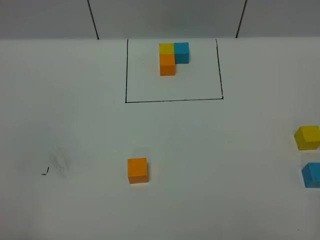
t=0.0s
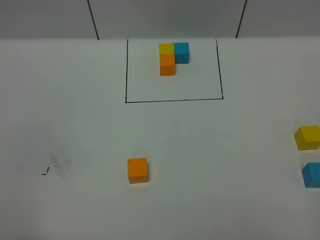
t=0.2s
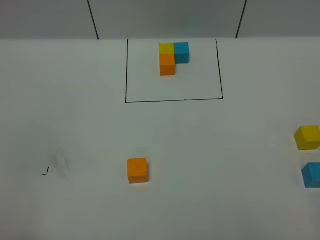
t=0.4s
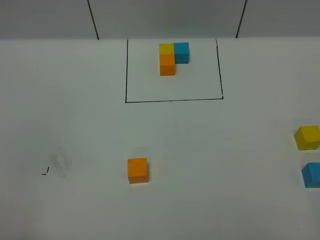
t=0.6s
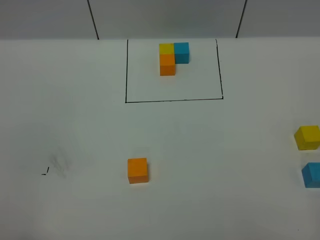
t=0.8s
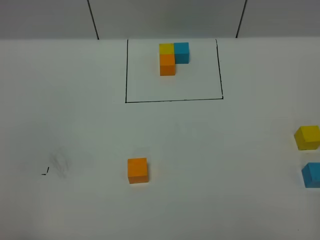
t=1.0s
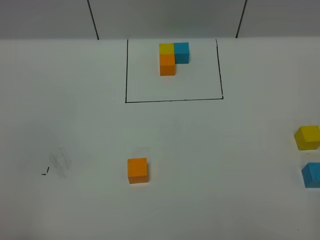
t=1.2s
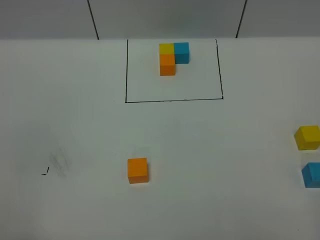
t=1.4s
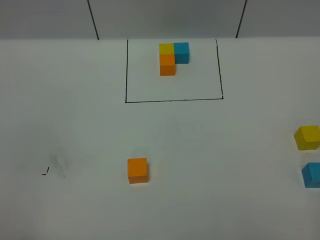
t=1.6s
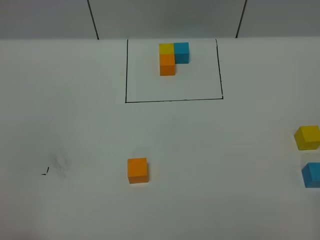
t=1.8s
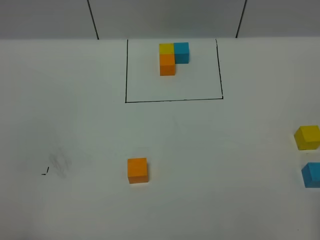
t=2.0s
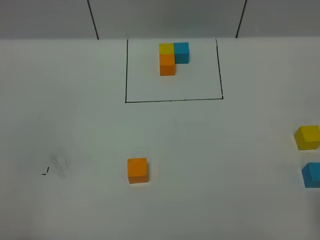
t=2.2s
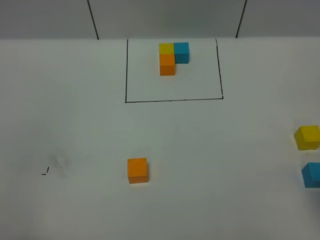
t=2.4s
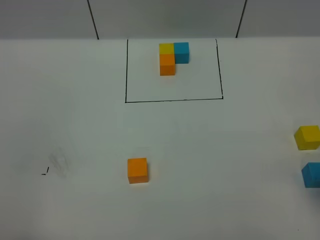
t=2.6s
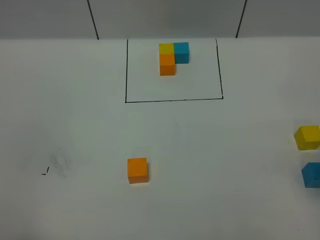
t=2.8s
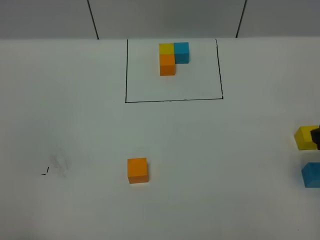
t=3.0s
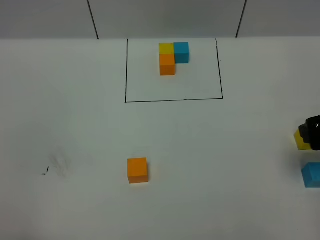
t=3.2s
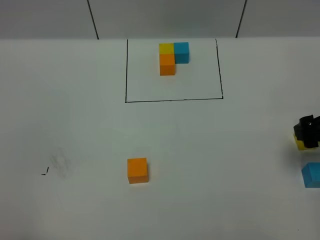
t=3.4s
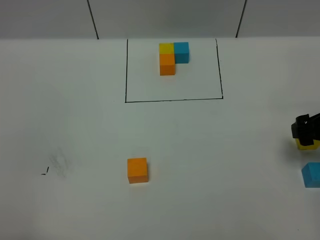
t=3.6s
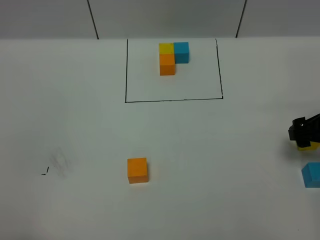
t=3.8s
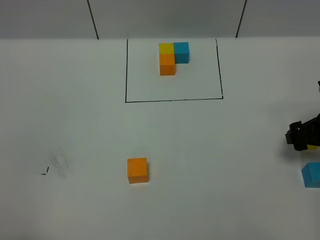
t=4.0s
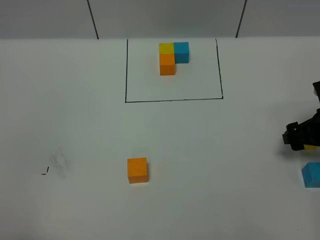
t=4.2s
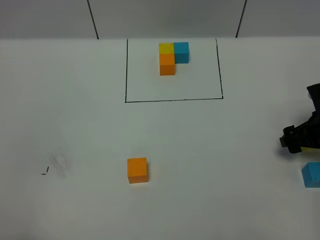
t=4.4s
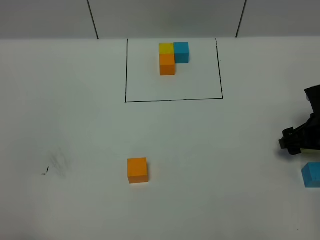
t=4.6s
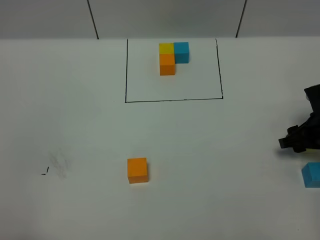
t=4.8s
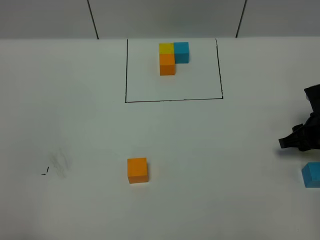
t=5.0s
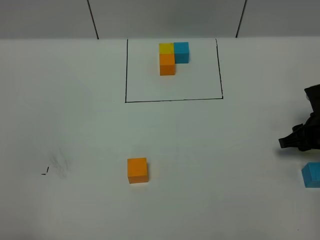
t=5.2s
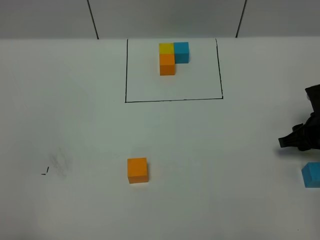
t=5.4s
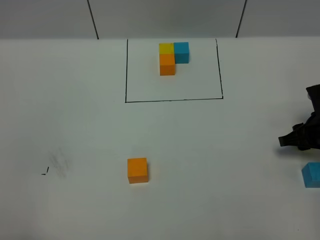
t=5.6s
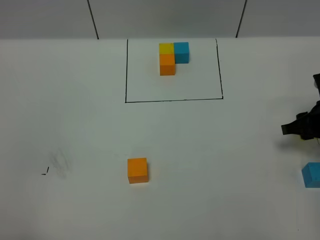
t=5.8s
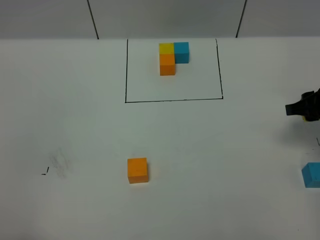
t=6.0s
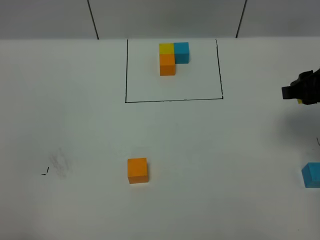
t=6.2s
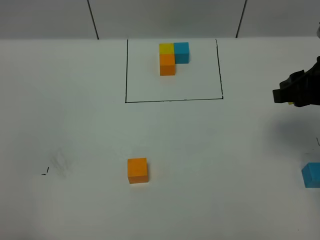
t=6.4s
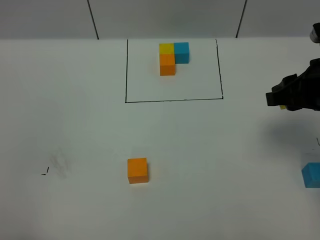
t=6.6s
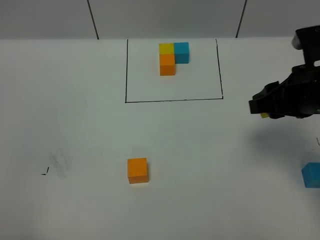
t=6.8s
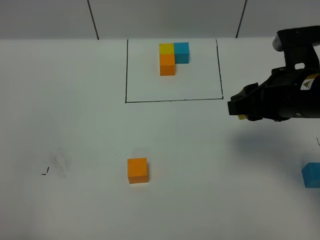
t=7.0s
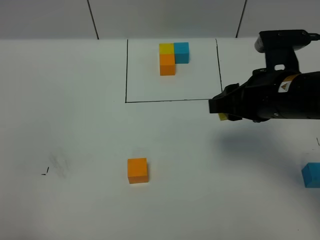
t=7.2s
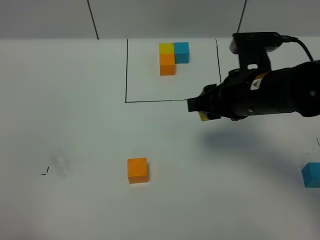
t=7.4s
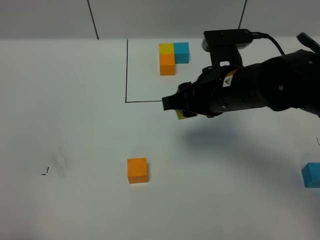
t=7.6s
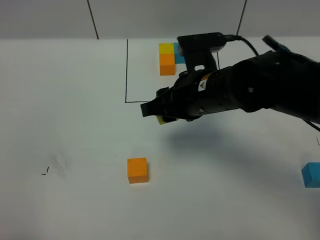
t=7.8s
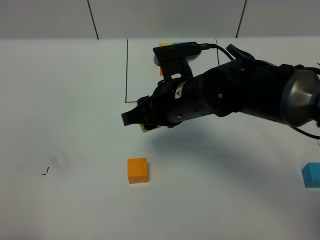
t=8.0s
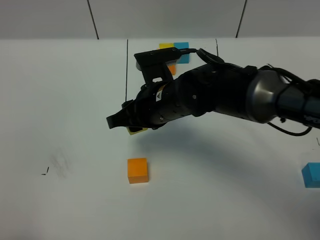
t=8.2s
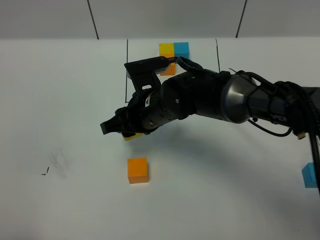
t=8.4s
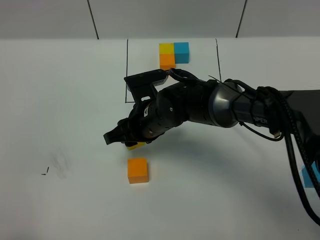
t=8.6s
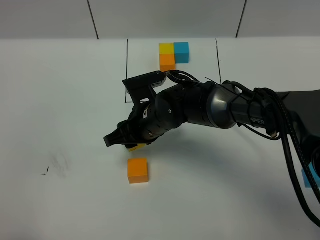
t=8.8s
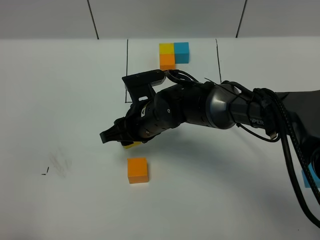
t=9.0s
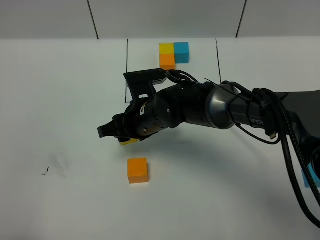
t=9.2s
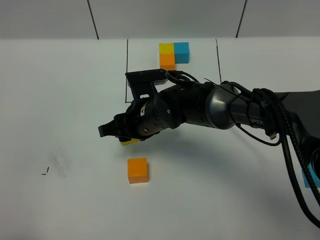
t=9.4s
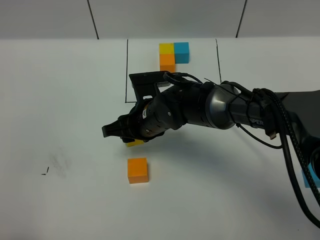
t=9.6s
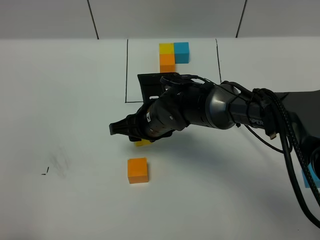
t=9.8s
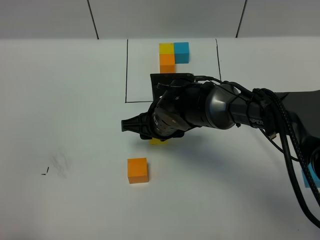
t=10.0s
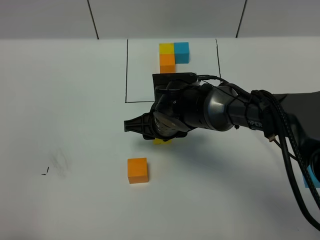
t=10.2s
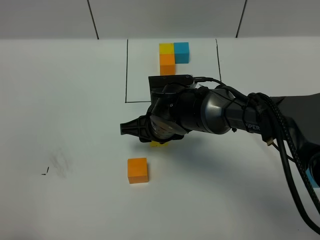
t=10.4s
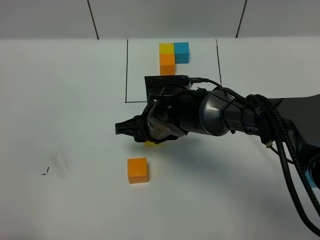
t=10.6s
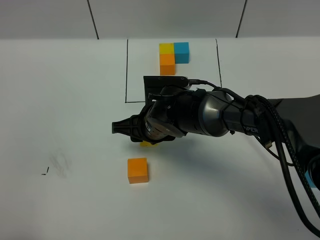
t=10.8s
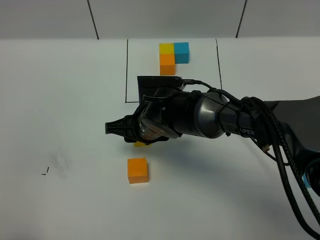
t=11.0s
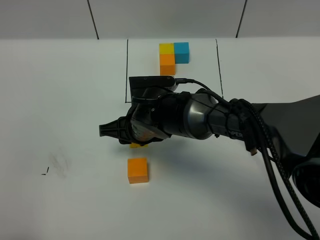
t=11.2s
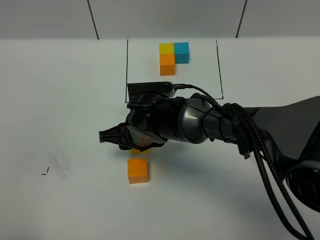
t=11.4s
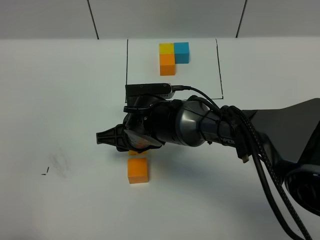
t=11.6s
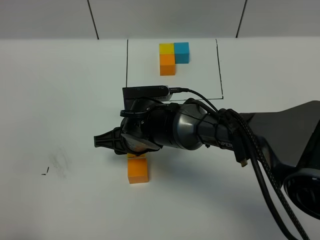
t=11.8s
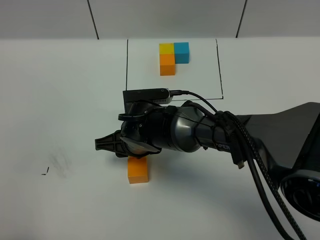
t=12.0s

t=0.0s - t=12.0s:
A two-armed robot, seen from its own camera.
Task of the whole recording: According to the building block template in front, assemble the scattered blocks together.
t=1.6s - t=3.0s: The right gripper travels forward by about 20 cm.
t=3.0s - t=4.4s: The right gripper goes some 15 cm downward and forward.
t=4.4s - t=6.0s: The right gripper travels upward by about 10 cm, and closes up.
t=6.0s - t=7.6s: The right gripper goes roughly 20 cm to the left.
t=7.6s - t=9.0s: The right gripper goes approximately 15 cm to the left and downward.
t=10.4s - t=12.0s: The right gripper shifts by some 5 cm.

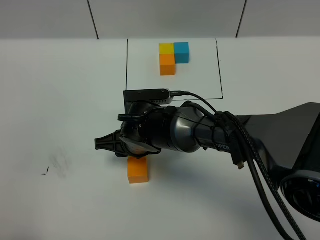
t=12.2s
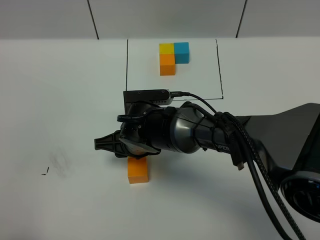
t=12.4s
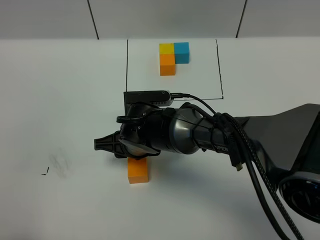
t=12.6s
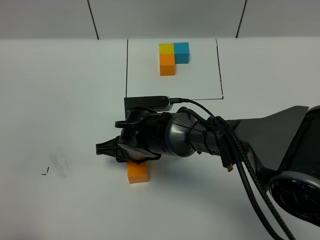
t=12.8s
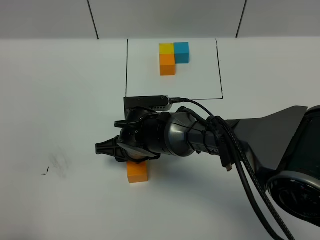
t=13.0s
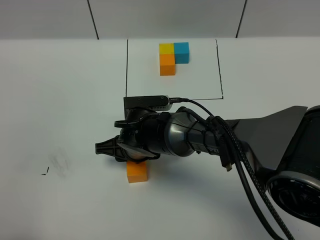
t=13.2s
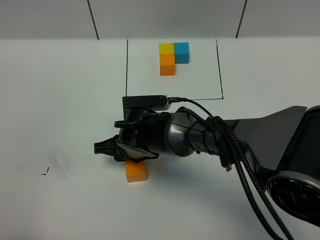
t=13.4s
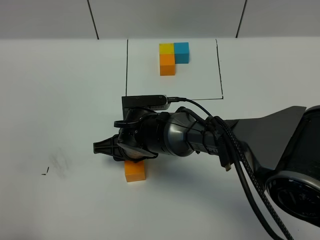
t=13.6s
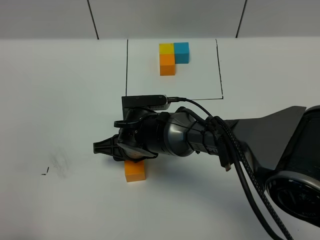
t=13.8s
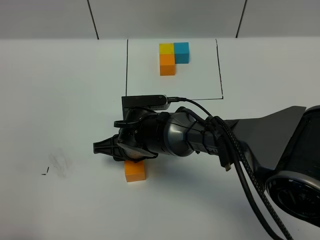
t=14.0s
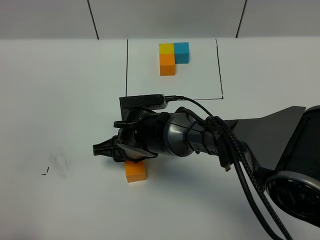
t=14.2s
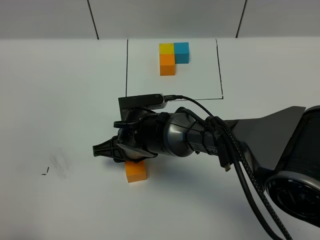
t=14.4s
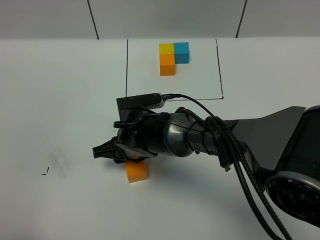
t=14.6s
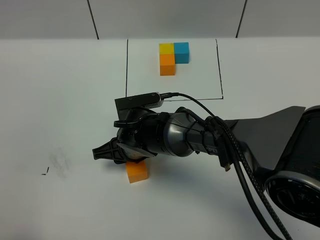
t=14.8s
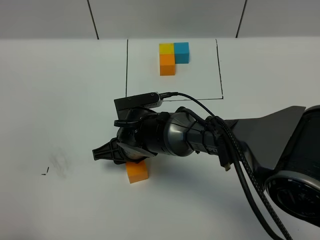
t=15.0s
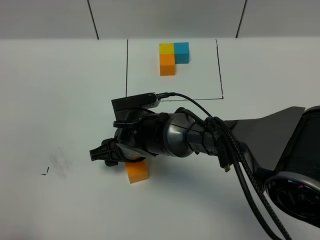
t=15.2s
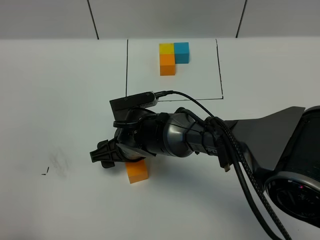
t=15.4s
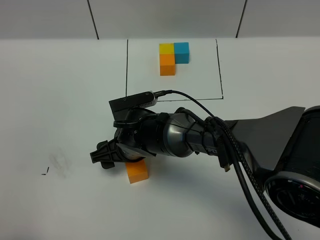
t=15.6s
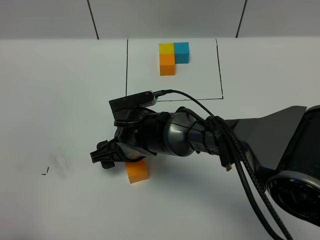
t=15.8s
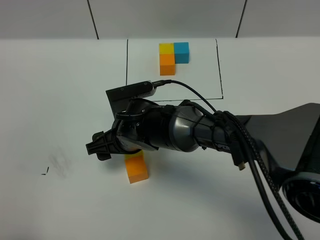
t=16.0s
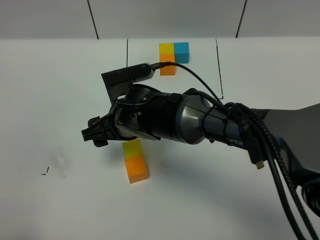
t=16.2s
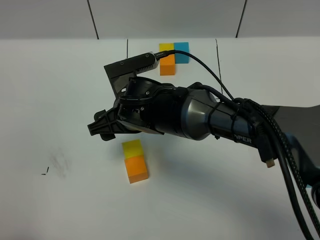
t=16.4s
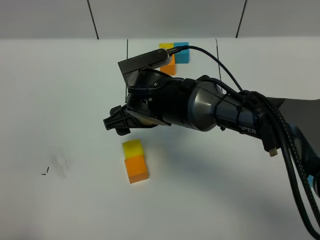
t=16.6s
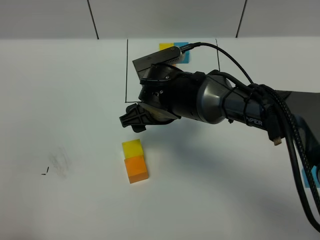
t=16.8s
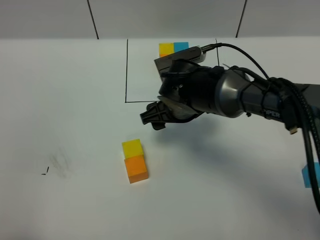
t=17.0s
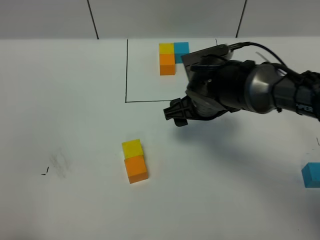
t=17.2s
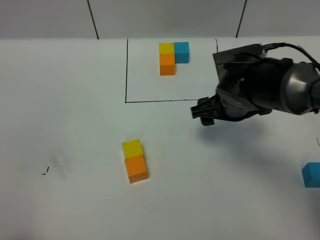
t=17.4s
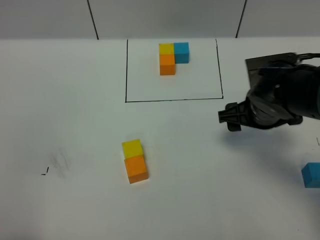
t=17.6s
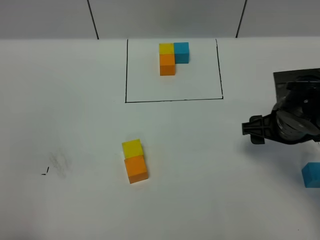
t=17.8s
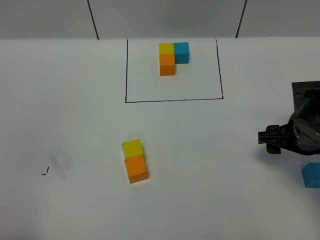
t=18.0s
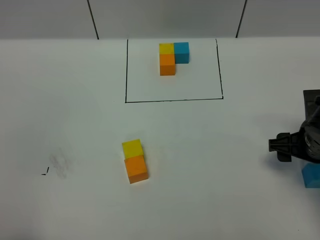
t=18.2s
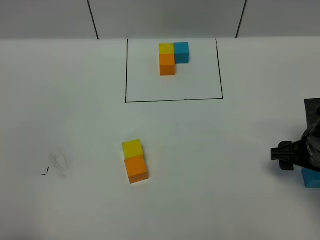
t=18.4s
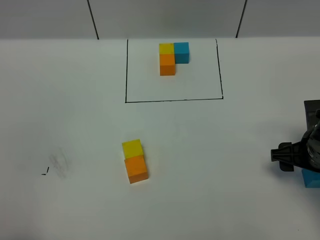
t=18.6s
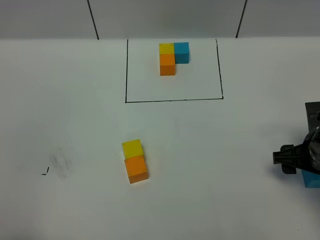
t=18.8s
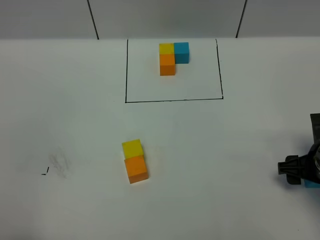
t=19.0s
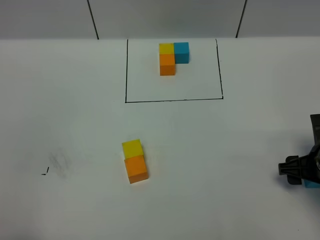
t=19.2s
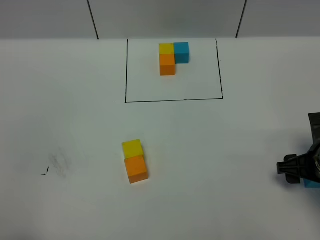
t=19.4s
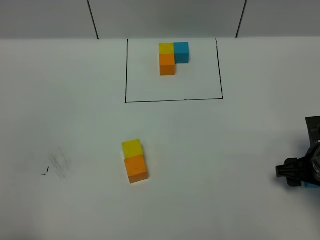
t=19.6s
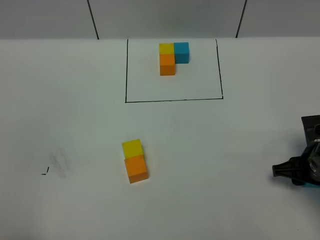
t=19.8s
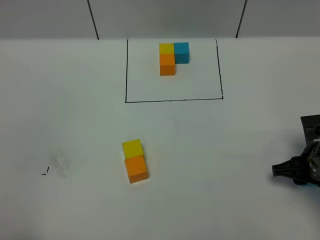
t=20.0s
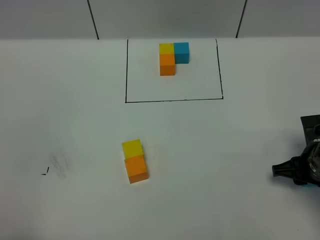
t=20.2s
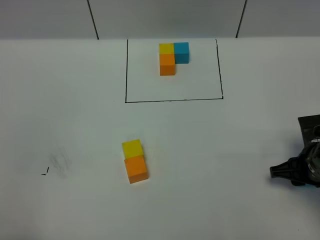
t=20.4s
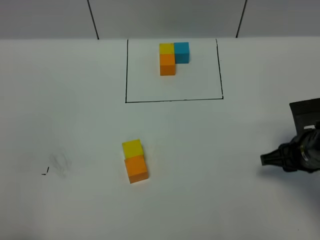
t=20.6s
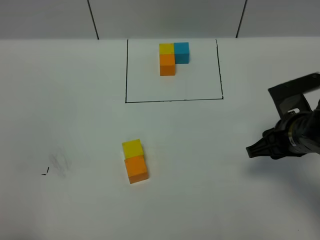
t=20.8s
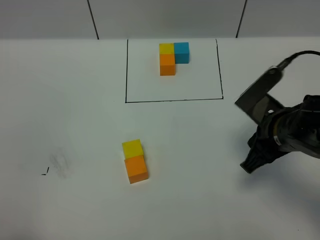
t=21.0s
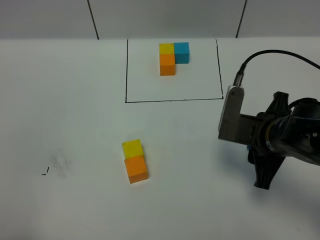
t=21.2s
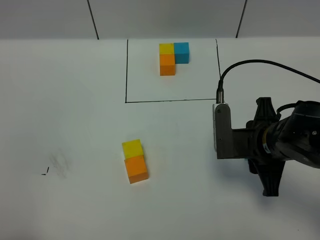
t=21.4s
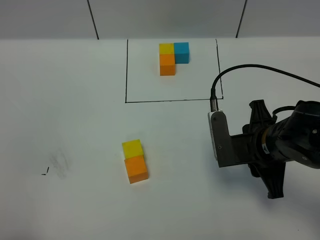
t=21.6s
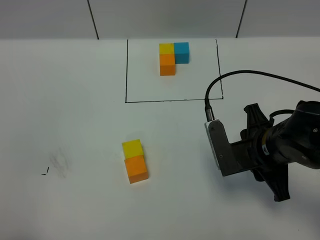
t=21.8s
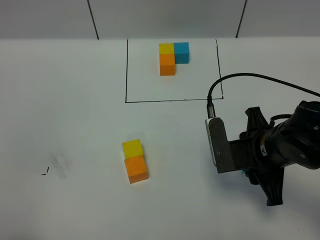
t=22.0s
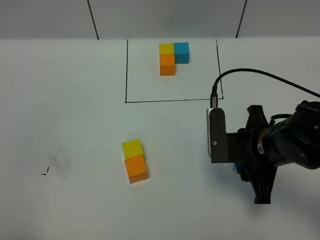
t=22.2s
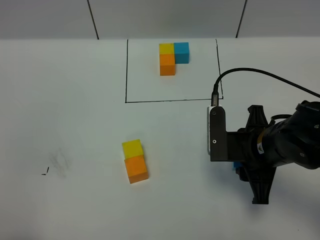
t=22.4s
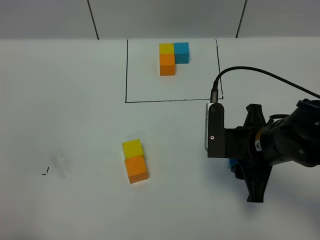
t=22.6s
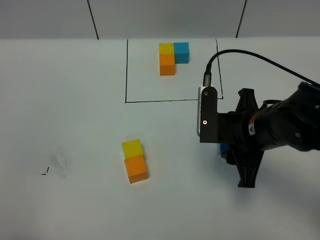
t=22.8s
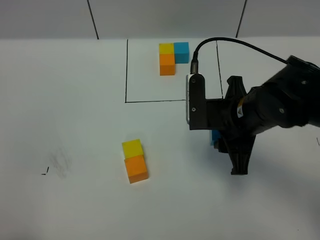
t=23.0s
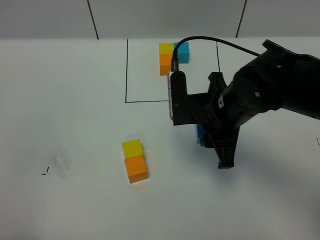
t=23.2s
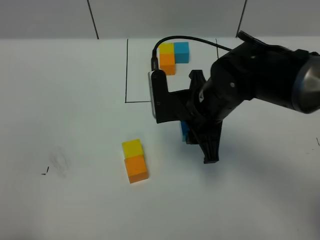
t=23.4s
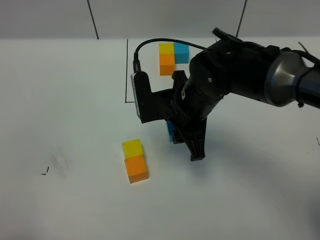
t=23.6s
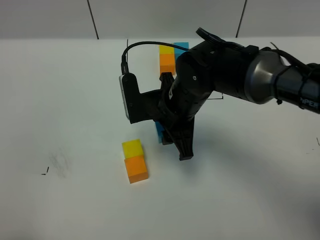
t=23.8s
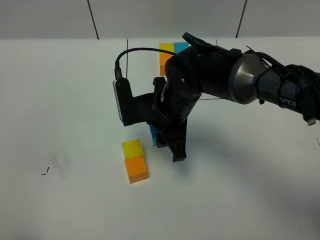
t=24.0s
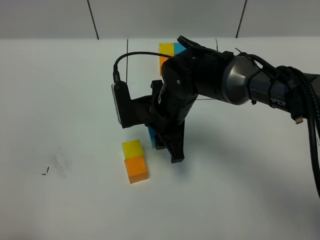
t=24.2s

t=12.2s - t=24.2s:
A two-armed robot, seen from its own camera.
Task of the whole recording: According to the building block template in front, assemble the scattered blocks together.
Step, t=12.2s - t=16.4s: Put the yellow cube on the behind of the orange cube.
t=12.2s - t=15.2s: The grippers make only small movements.
t=15.2s - t=16.6s: The right gripper goes approximately 10 cm upward.
t=16.6s - t=18.2s: The right gripper moves to the right, roughly 30 cm.
t=18.2s - t=19.8s: The right gripper shifts by roughly 5 cm, and closes its fingers.
t=19.8s - t=21.2s: The right gripper is displaced to the left and upward by approximately 15 cm.
t=22.6s - t=24.2s: The right gripper is displaced to the left and forward by roughly 15 cm.
